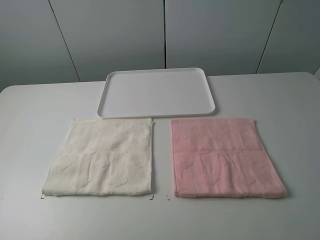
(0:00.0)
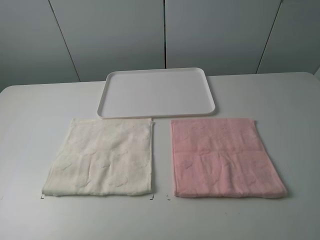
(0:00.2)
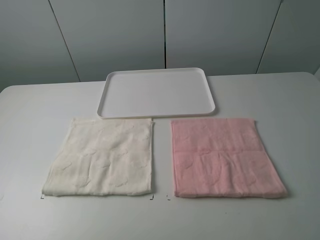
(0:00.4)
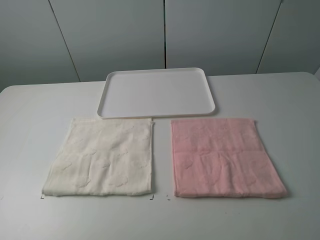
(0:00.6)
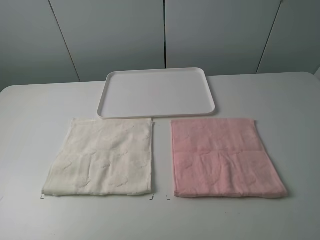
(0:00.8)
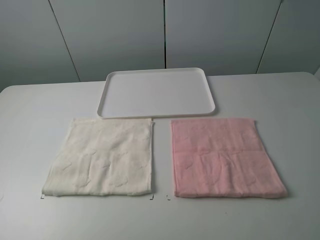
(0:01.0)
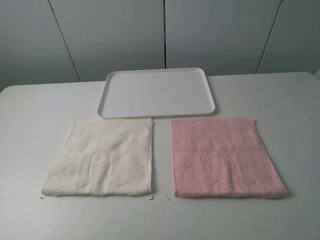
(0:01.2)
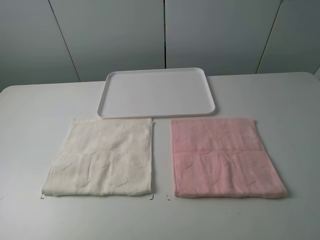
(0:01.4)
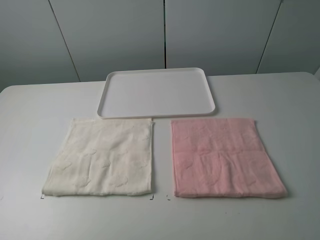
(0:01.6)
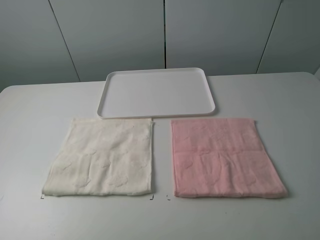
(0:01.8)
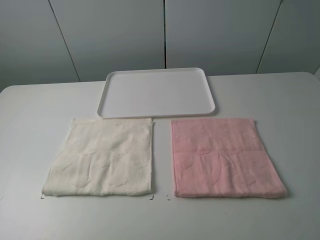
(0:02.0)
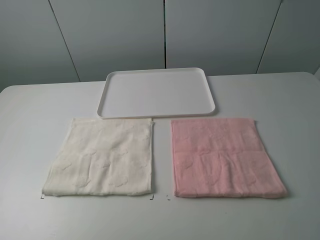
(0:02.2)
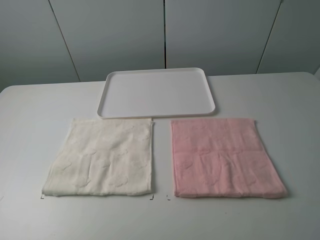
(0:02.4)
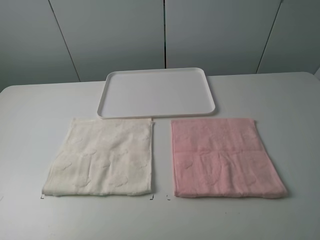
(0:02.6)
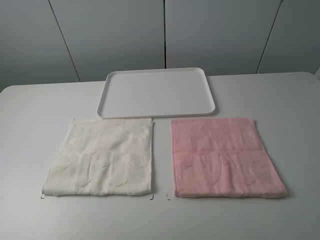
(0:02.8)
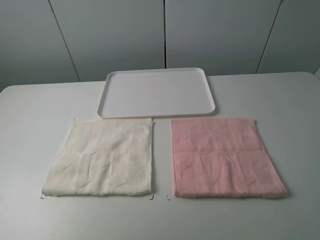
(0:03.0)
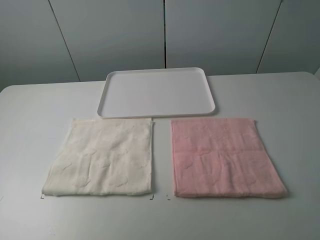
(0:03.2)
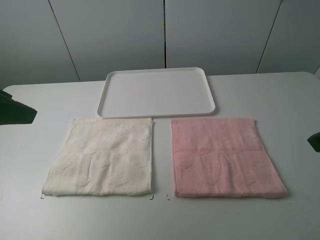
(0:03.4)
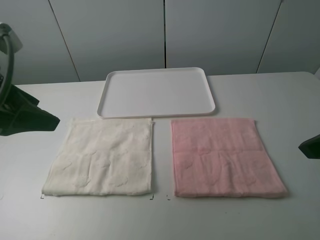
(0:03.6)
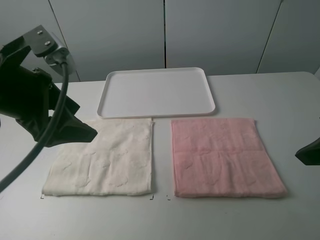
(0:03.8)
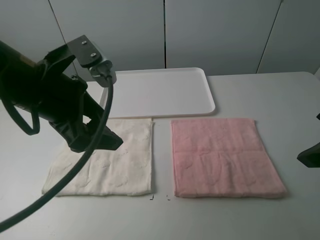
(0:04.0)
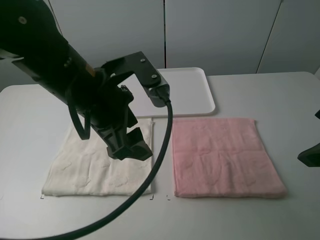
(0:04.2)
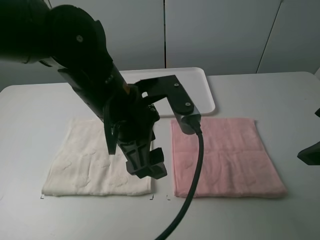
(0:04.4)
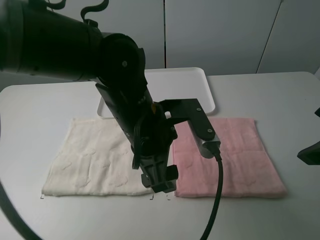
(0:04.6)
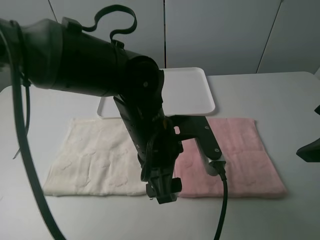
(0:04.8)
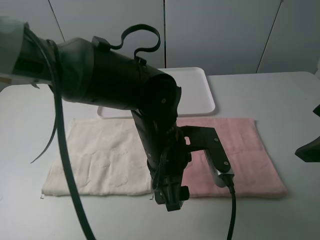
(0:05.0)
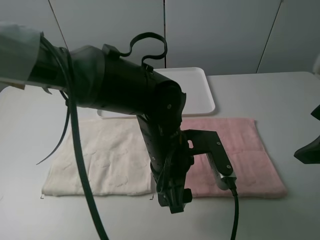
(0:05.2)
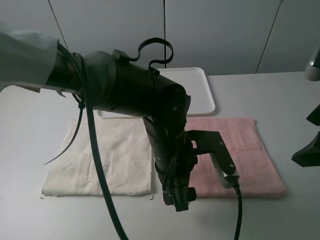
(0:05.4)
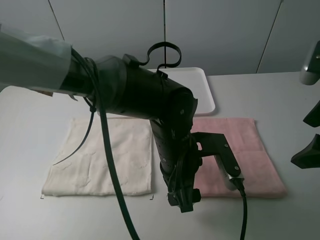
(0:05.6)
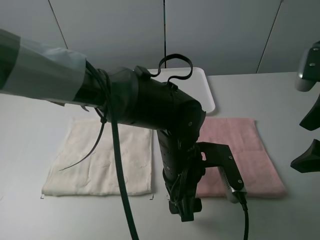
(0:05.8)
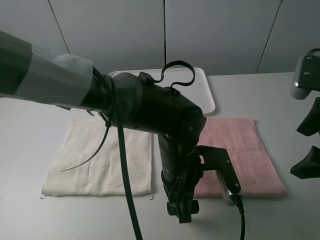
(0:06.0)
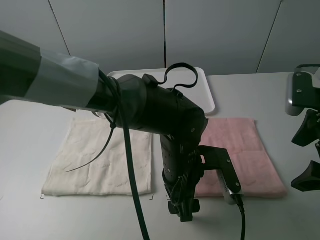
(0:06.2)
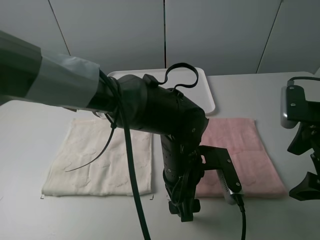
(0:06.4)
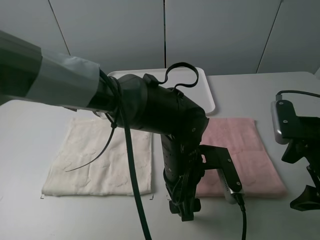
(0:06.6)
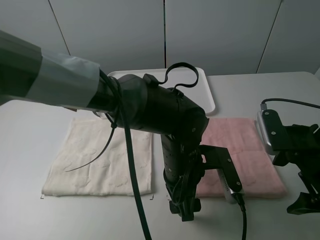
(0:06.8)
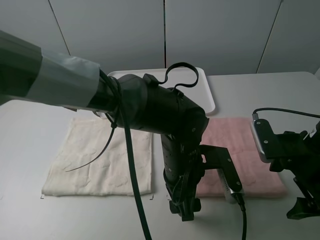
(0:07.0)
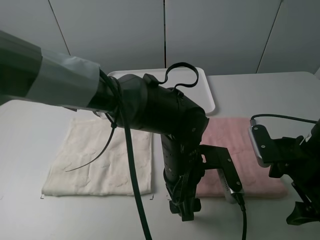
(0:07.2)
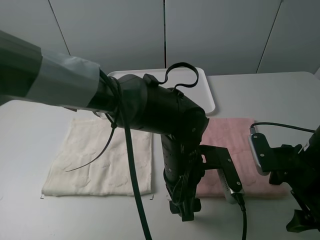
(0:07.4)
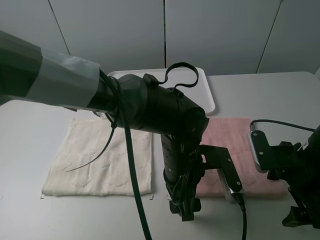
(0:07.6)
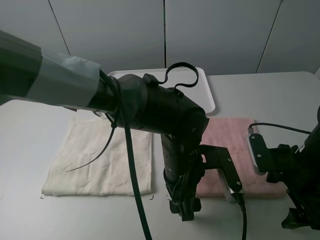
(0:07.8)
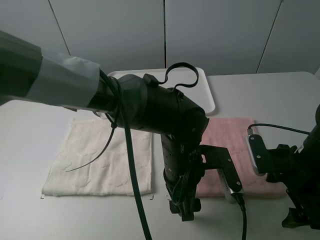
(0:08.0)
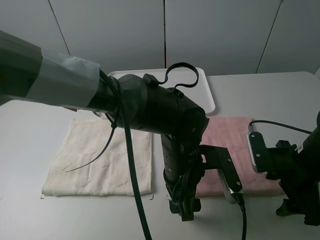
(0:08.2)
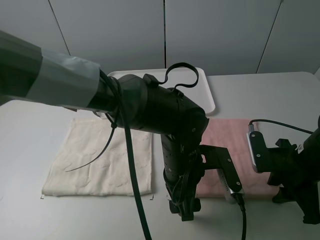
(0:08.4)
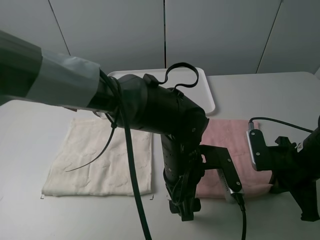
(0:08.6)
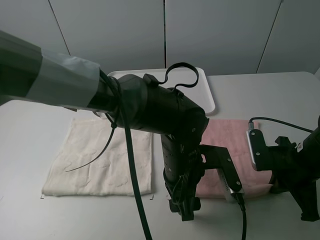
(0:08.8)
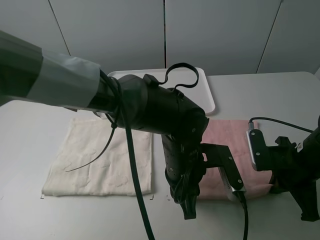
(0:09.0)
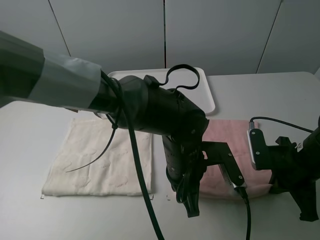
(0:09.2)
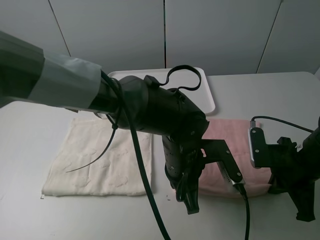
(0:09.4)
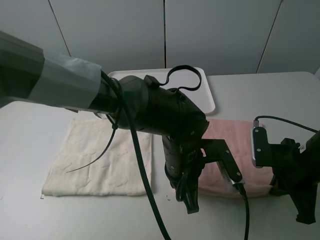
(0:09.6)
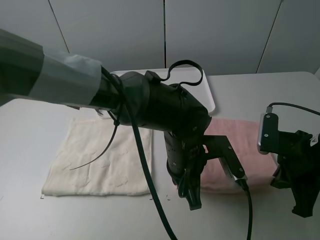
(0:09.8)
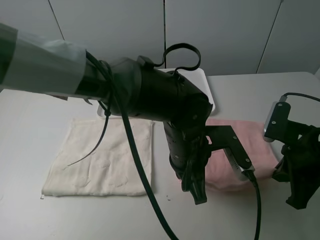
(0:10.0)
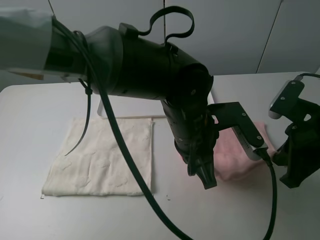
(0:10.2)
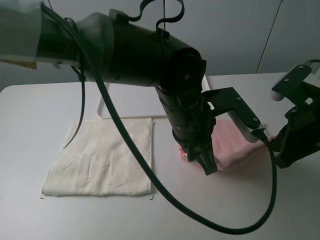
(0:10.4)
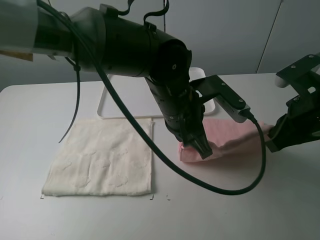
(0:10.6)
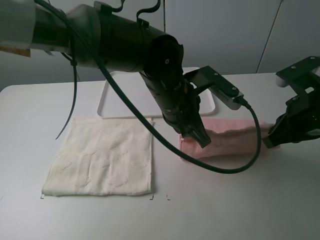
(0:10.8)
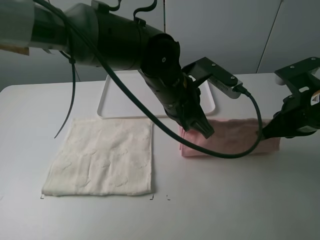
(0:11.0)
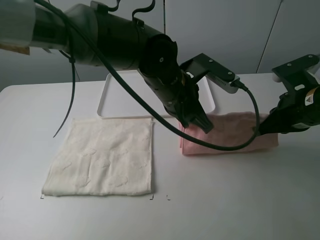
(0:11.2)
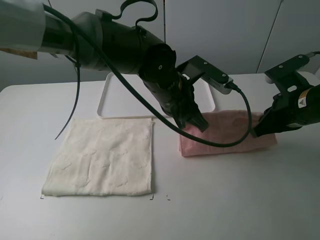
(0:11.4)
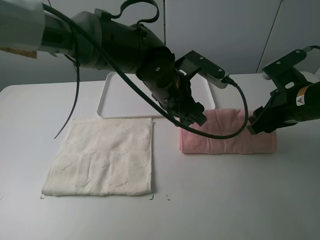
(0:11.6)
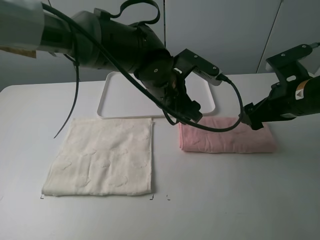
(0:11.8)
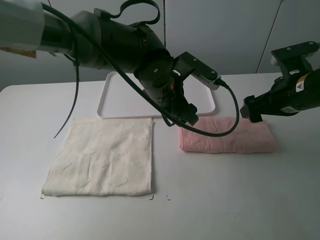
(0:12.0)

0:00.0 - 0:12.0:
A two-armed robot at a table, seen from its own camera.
Task of the whole recording: fold one of the towels by two grippers and place it on the tray,then fold another towel by two grippers and place it on the folded towel.
Step, 0:00.0 - 0:09.2: Grasp the pink towel with the left gripper.
Step, 0:09.4 - 0:11.6: Fold the pink towel upwards with the left gripper.
0:00.0 - 0:01.6: The two grippers keep their place.
0:03.0 - 0:04.4: The right gripper shifts approximately 10 cm forward. Meanwhile the left gripper goes about 30 cm to the right, downward and forward.
0:04.4 - 0:06.0: The left gripper is displaced downward and to the right by roughly 15 cm.
0:06.0 - 0:07.6: The right gripper shifts roughly 10 cm downward.
0:07.6 - 0:09.0: The right gripper closes its fingers; the left gripper closes up.
0:09.0 - 0:10.4: Both grippers move upward, about 10 cm.
0:10.4 - 0:12.0: The two grippers go some 5 cm forward. The left gripper opens up. The right gripper opens its fingers.

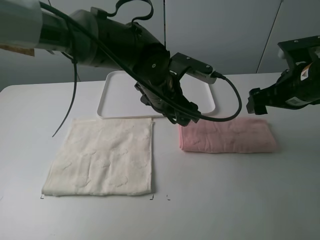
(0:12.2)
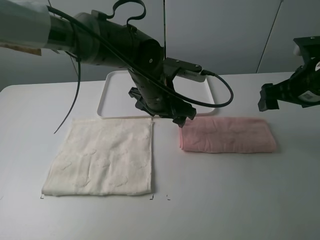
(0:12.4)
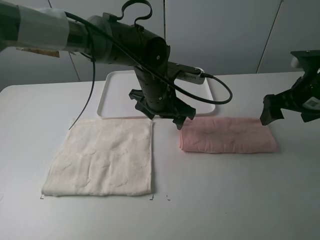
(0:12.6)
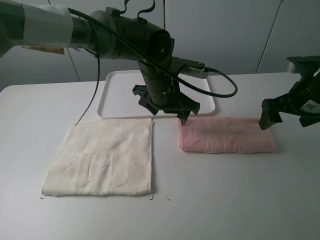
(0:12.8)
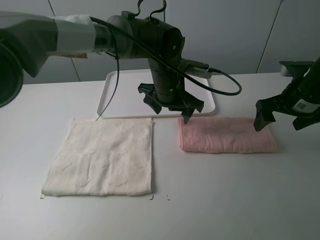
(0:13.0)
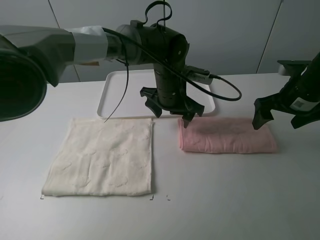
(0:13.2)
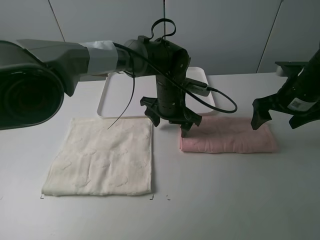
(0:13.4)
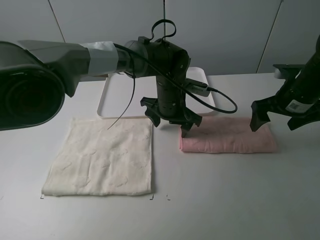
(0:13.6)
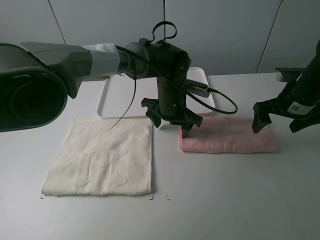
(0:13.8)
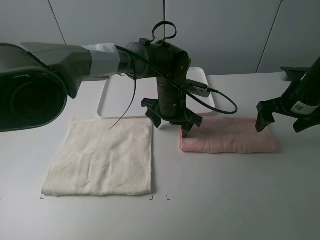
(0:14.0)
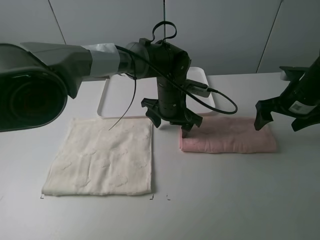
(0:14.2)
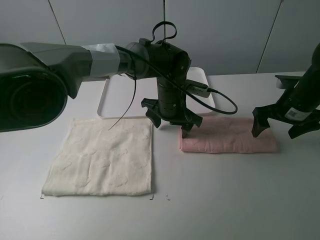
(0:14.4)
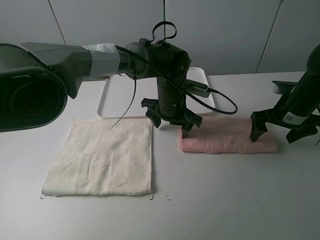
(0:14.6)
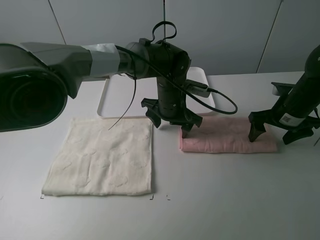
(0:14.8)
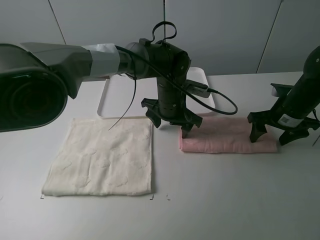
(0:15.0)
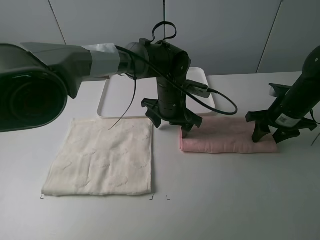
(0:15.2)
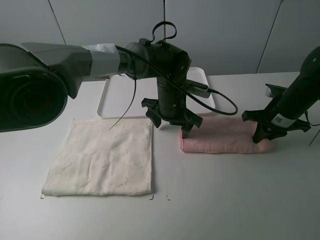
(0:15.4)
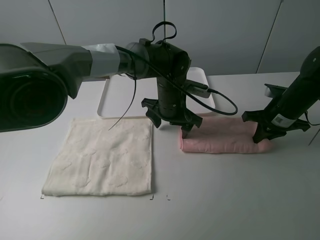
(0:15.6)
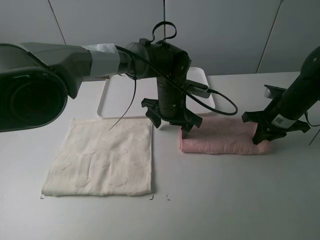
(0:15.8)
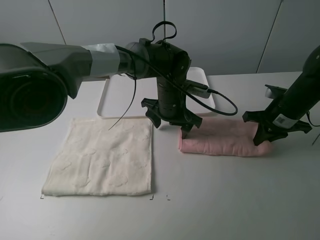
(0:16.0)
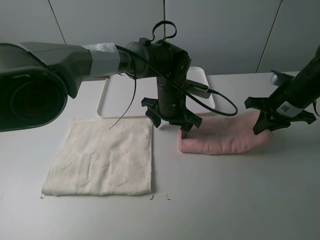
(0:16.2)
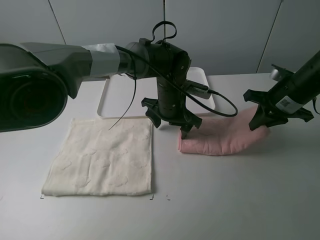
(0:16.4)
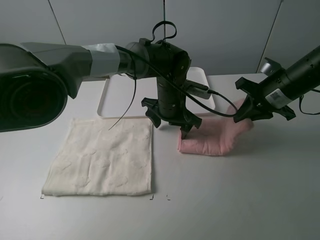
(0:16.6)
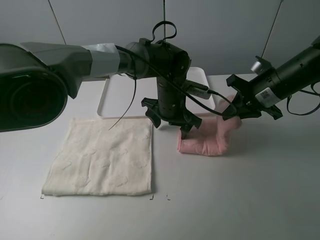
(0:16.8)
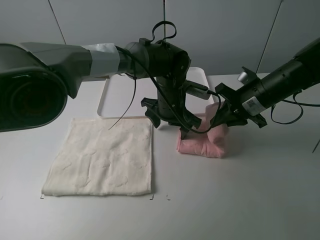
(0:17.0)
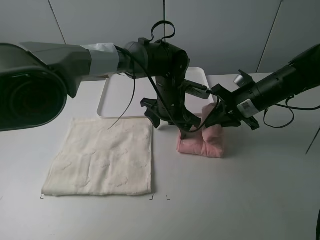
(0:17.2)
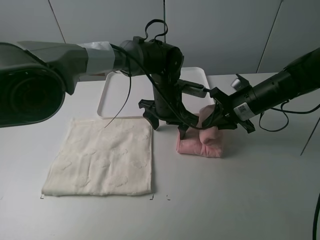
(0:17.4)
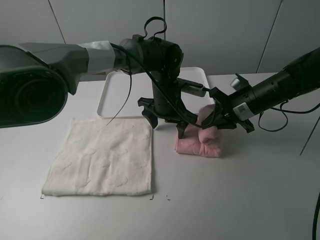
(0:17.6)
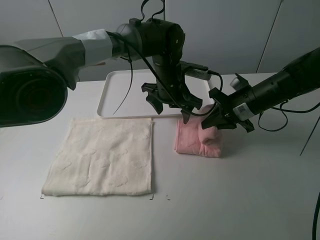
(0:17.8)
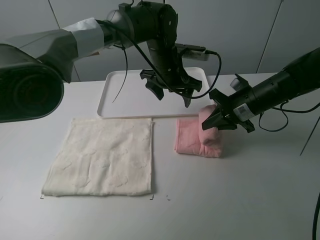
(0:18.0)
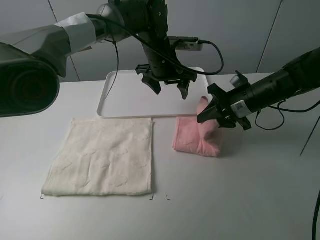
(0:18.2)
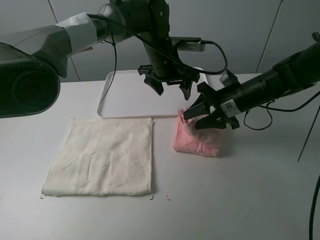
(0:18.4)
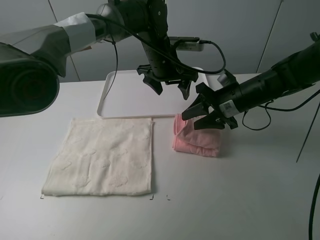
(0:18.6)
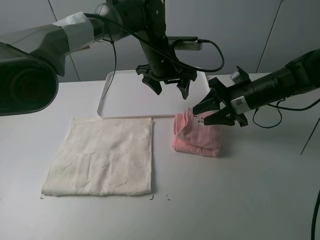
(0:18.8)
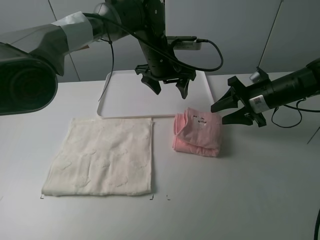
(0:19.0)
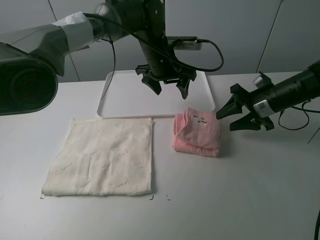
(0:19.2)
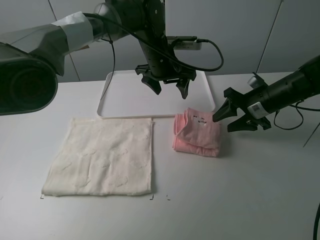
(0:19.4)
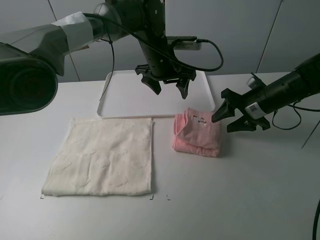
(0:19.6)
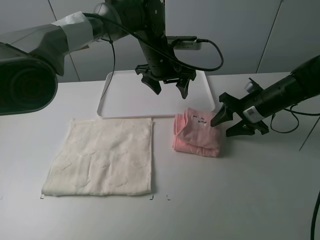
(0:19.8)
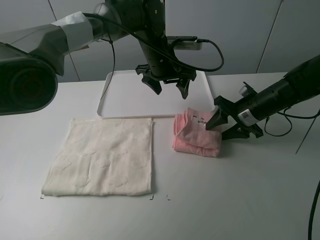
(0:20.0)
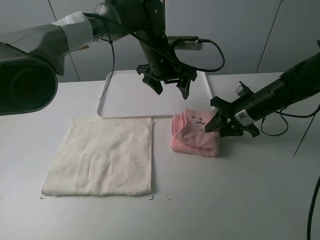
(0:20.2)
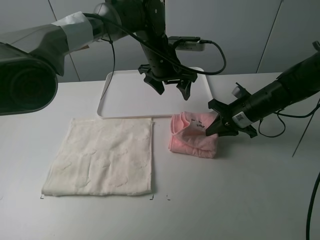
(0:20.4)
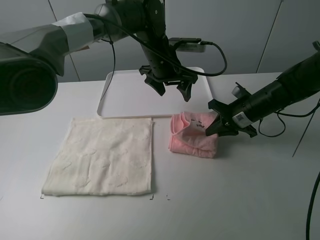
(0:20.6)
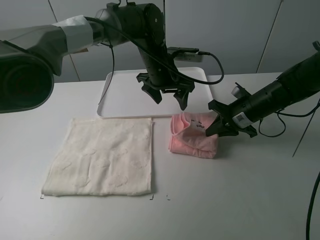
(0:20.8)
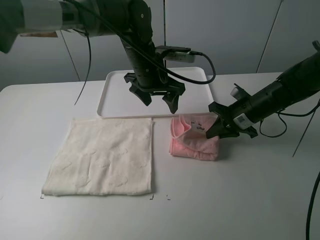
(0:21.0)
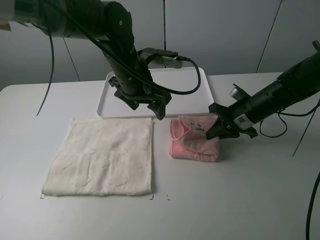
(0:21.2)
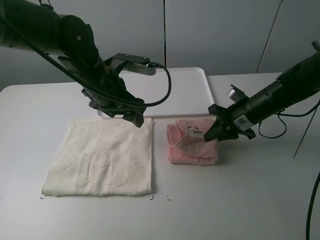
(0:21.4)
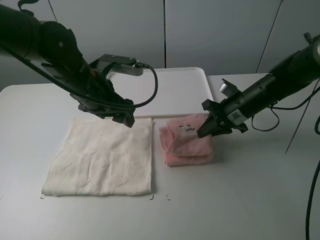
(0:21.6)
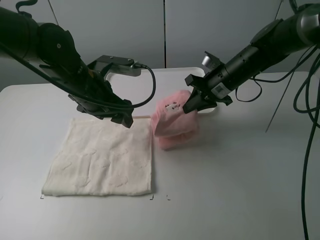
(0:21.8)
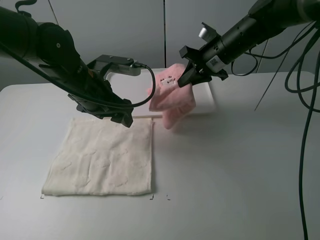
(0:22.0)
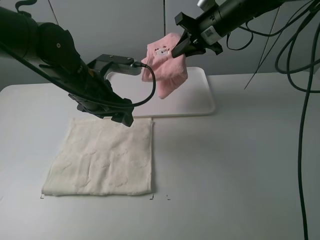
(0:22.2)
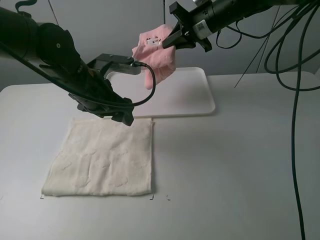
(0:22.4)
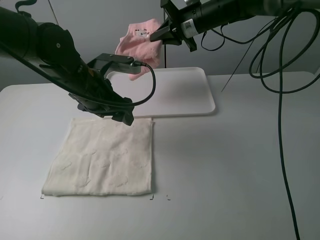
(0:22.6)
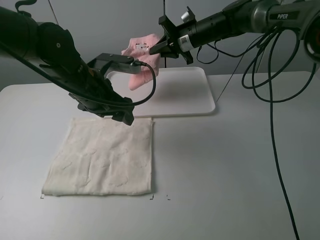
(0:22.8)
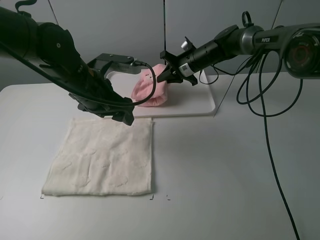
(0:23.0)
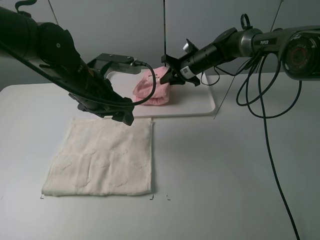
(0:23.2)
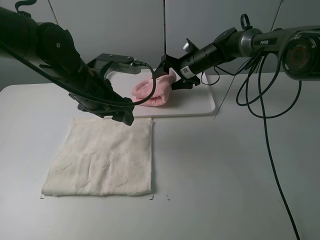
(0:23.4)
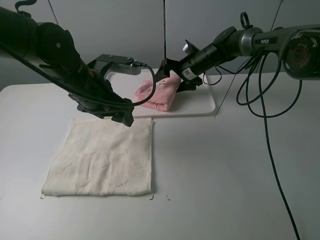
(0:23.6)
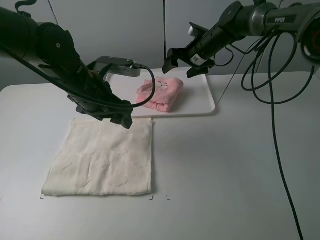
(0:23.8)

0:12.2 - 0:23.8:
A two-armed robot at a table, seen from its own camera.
Task of the whole recording: fold one of the towels by two grippers and place it on the tray,then fold another towel by two grippers and place it on the folded towel.
Step, 0:12.2 - 0:14.0: Press the pink towel with the left gripper.
Step, 0:14.2 - 0:15.6: Grasp the pink towel with the right gripper.
Step, 0:15.8 - 0:18.6: Fold the pink towel from right to left with right gripper.
Step, 0:18.8 - 0:20.4: Grasp the pink towel with the right gripper.
0:12.2 - 0:13.6: The left gripper moves downward and forward, approximately 10 cm; the right gripper shifts by approximately 5 cm.
0:13.6 - 0:15.0: The right gripper moves downward, about 5 cm.
0:15.0 - 0:16.6: The right gripper travels upward by about 5 cm, and closes.
0:16.6 - 0:18.0: The left gripper goes approximately 5 cm upward. Meanwhile the right gripper is displaced downward by some 5 cm.
0:18.0 - 0:19.4: The right gripper opens up.
0:19.4 - 0:21.0: The right gripper closes its fingers, while the left gripper moves roughly 5 cm.
0:21.0 - 0:22.4: The right gripper travels upward, forward and to the left by roughly 20 cm, while the left gripper is displaced to the left and backward by some 15 cm.
0:22.4 - 0:23.8: The right gripper goes roughly 10 cm downward, and opens.
